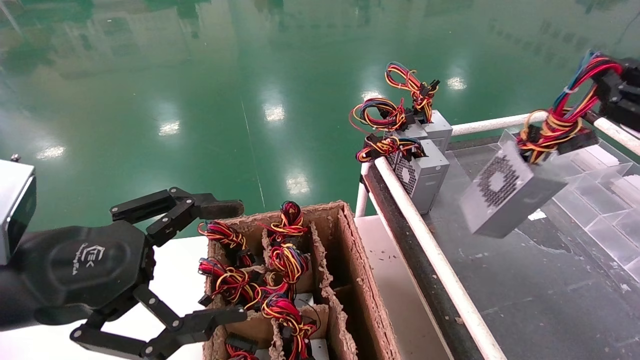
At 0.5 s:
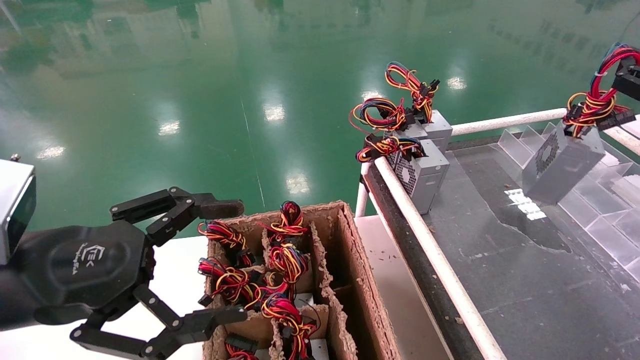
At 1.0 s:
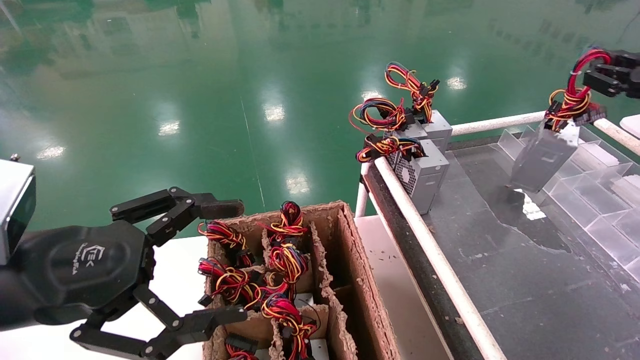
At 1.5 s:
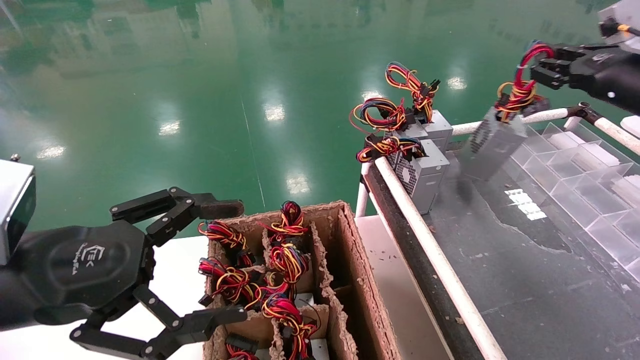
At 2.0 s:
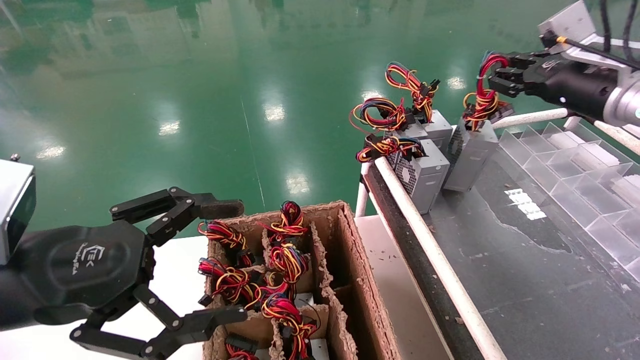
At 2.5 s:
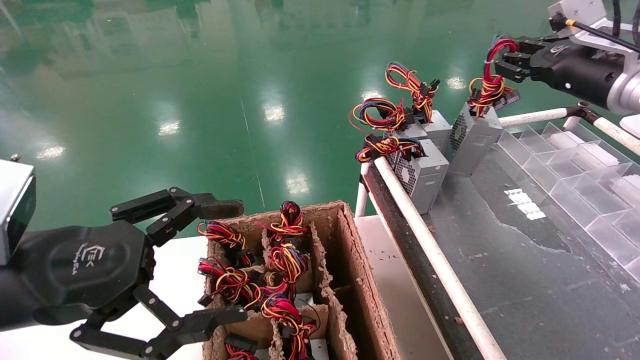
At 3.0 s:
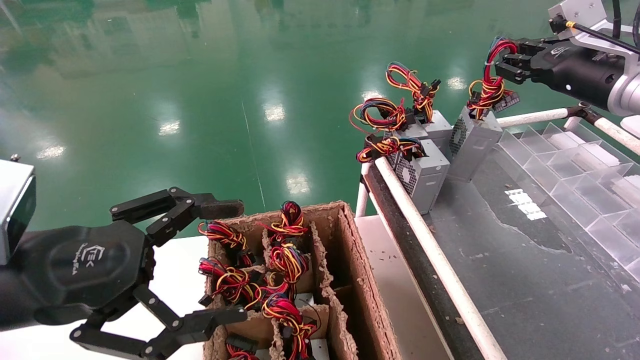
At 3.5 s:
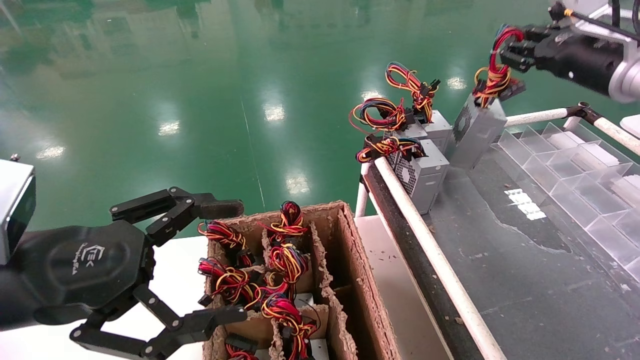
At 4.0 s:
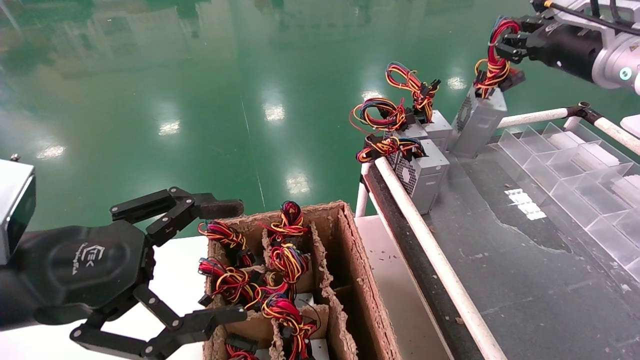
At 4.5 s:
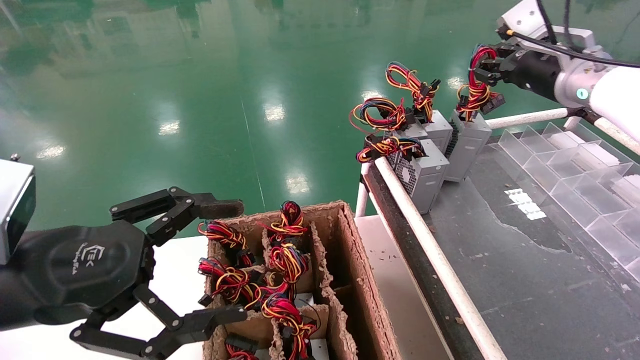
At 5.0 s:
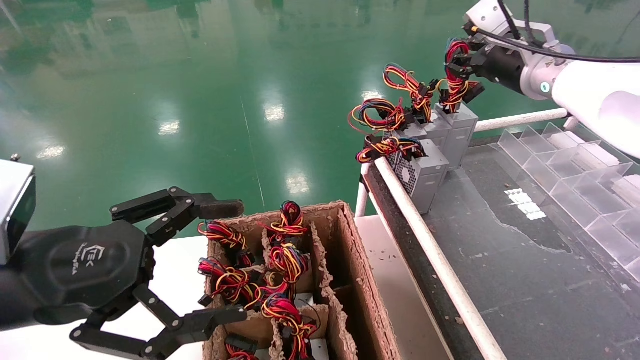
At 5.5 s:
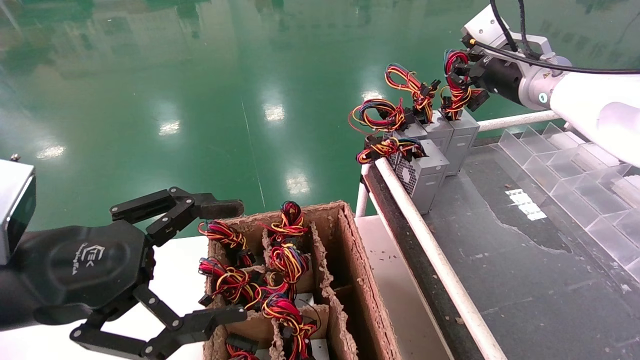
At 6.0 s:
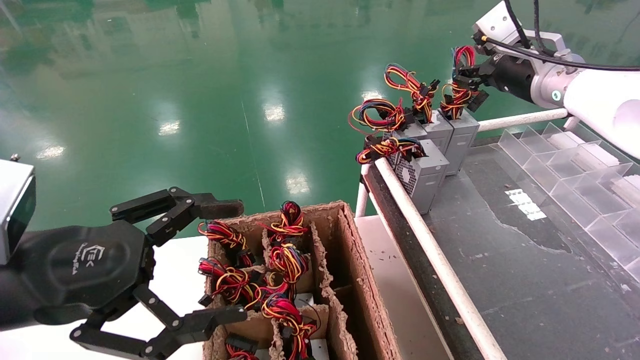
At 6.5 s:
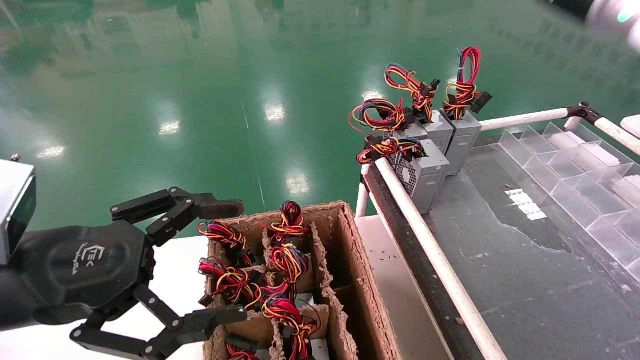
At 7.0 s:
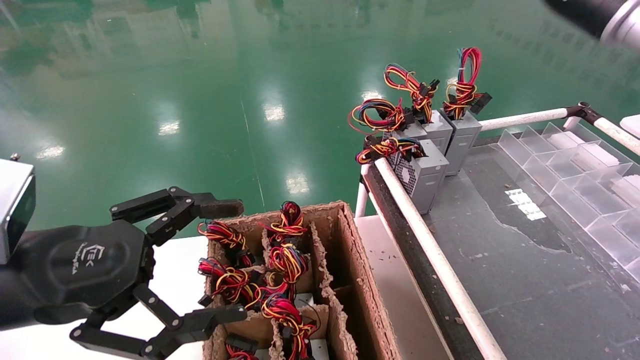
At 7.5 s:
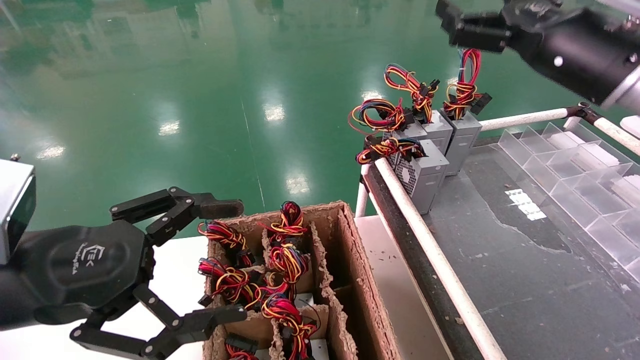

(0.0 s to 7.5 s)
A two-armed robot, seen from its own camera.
Step, 0.0 s - 5.5 s: Place the power supply on the operating table.
0.0 s - 2.0 s: The right gripper moves forward and to the left, approximately 20 cm.
2.0 s - 4.0 s: There are only small adjustments of the grippers.
4.0 s - 5.5 s: The right gripper heads to the left, covering about 5 cm.
5.5 s - 7.5 s: The right gripper heads backward, covering some 10 cm, and opens.
